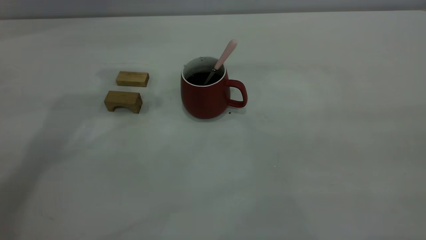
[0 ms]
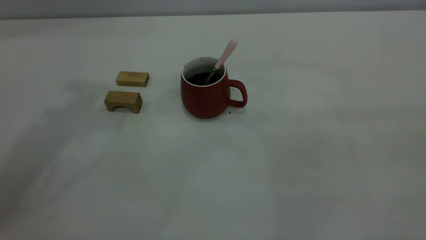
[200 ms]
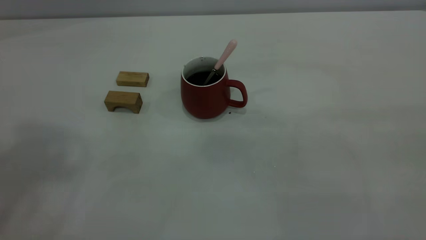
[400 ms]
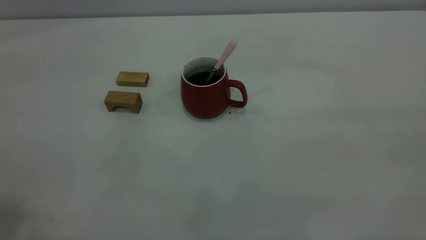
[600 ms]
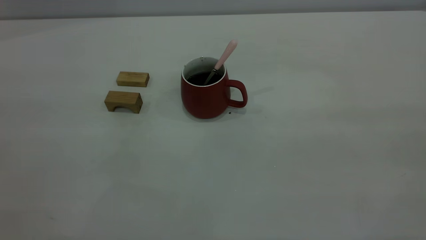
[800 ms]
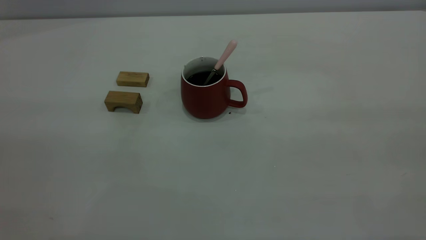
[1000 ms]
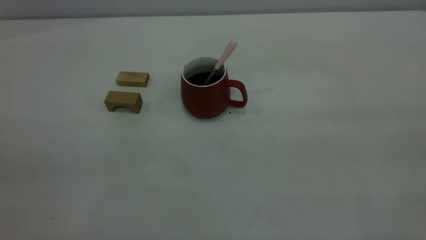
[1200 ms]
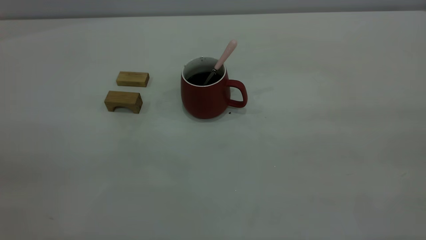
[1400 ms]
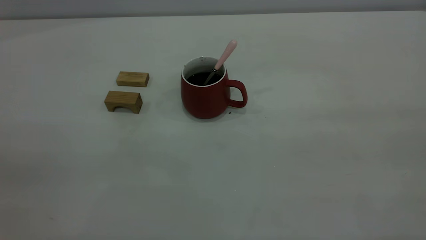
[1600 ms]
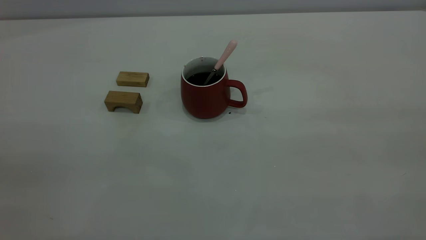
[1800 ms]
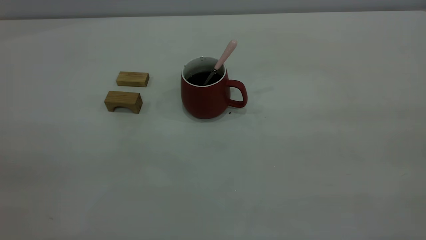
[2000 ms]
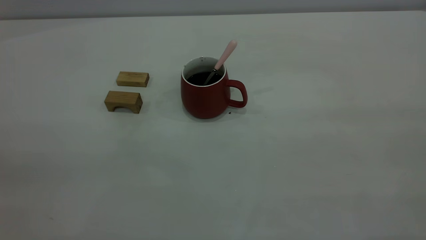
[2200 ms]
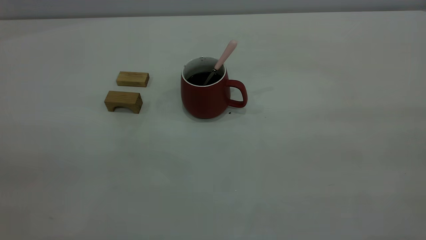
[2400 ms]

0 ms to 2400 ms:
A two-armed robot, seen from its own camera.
1200 ms to 2400 ms: Neither gripper changes place.

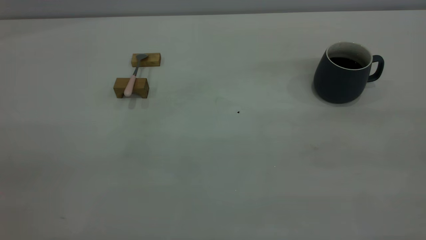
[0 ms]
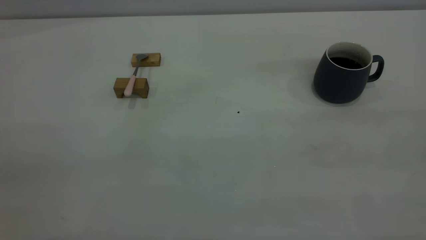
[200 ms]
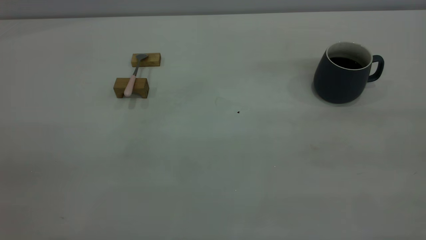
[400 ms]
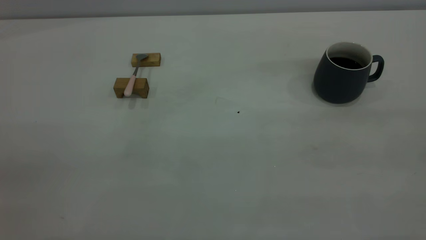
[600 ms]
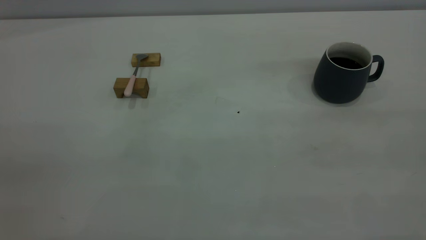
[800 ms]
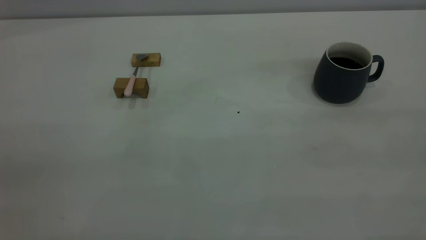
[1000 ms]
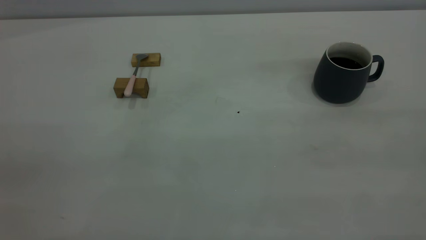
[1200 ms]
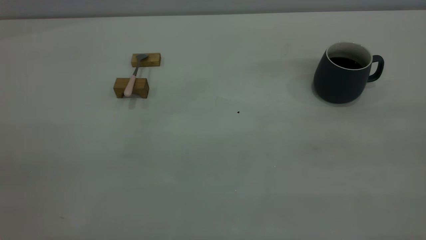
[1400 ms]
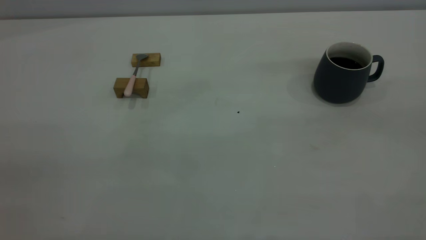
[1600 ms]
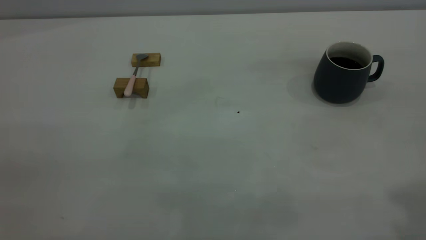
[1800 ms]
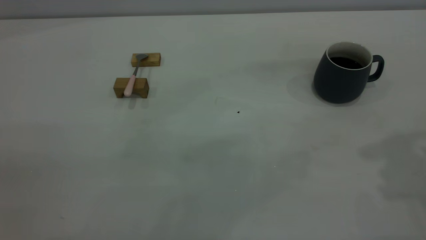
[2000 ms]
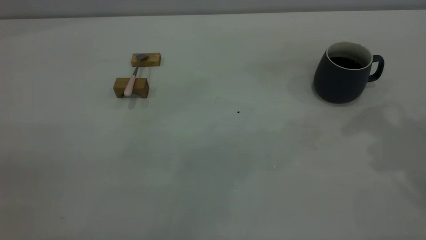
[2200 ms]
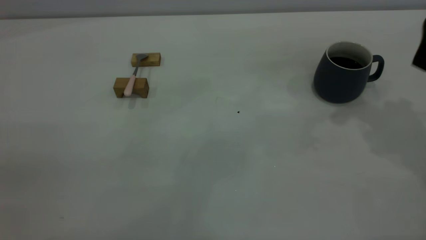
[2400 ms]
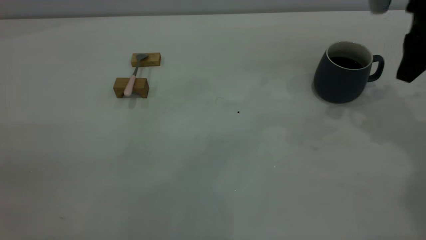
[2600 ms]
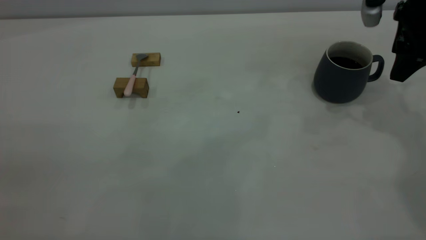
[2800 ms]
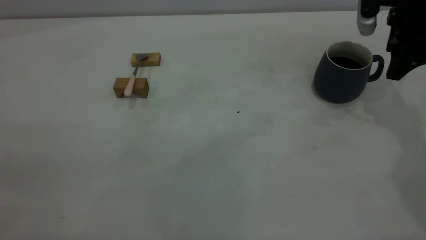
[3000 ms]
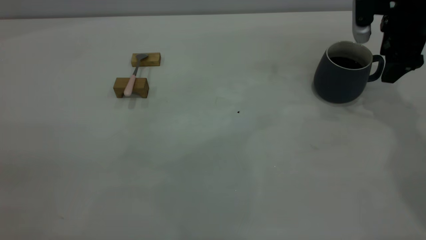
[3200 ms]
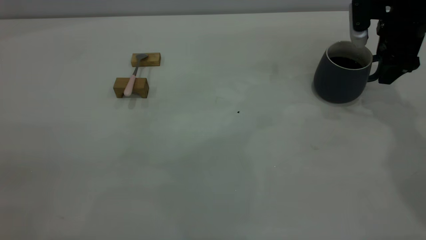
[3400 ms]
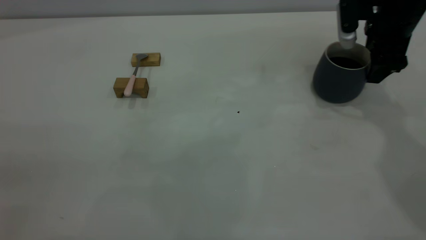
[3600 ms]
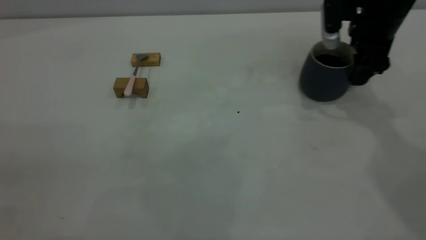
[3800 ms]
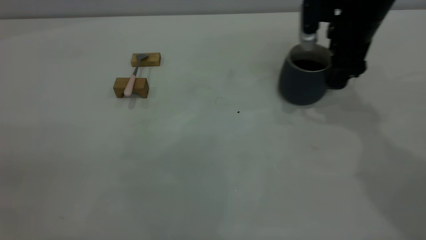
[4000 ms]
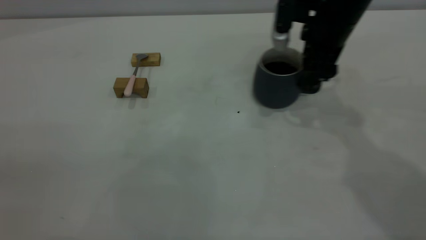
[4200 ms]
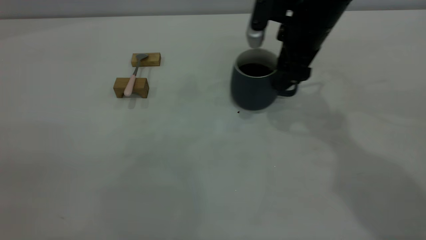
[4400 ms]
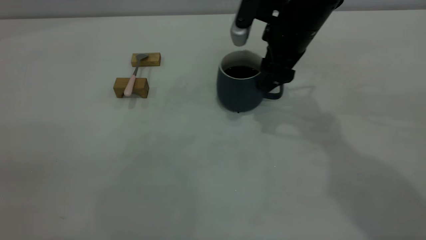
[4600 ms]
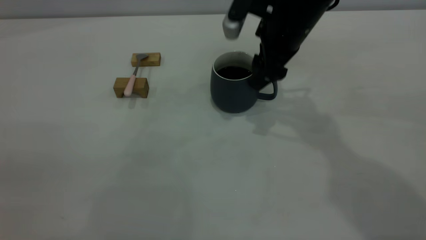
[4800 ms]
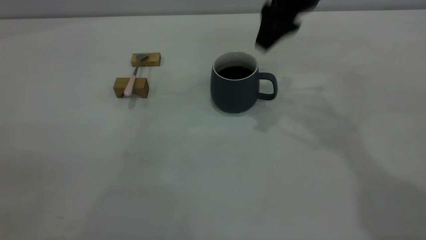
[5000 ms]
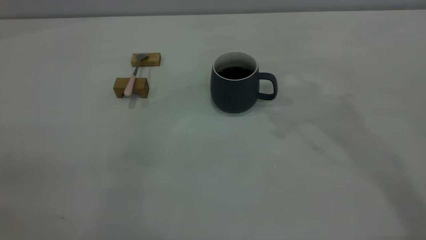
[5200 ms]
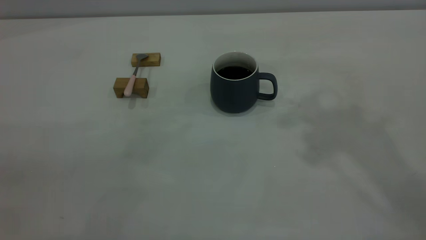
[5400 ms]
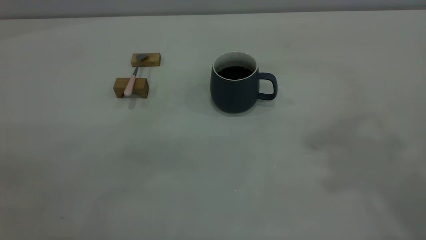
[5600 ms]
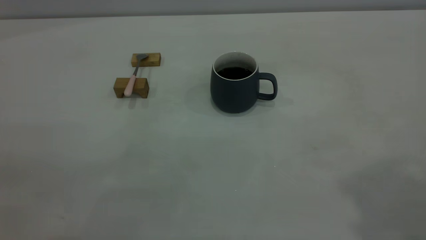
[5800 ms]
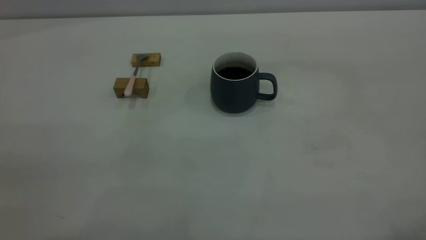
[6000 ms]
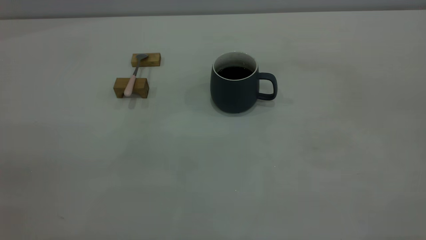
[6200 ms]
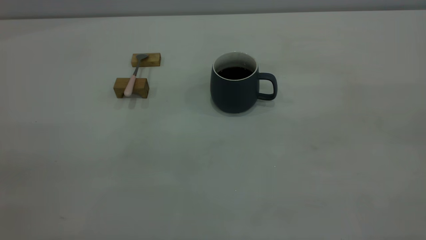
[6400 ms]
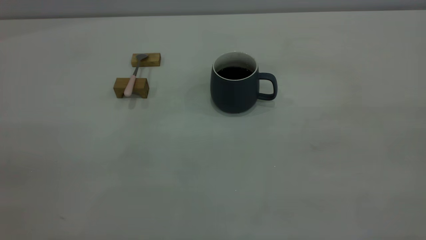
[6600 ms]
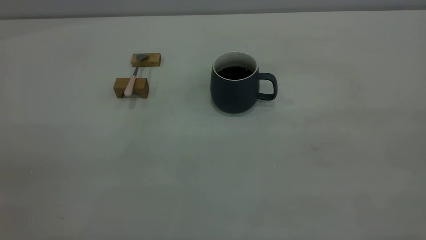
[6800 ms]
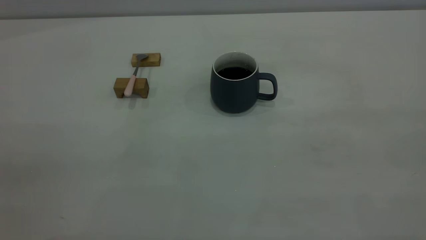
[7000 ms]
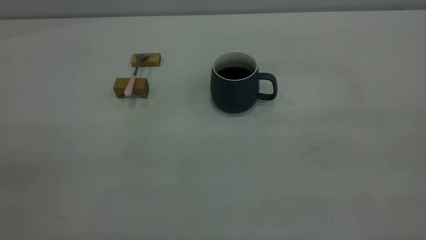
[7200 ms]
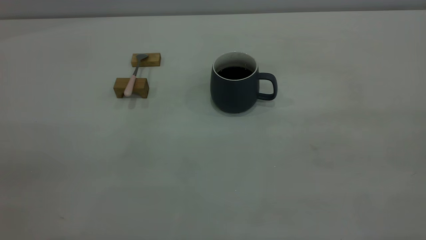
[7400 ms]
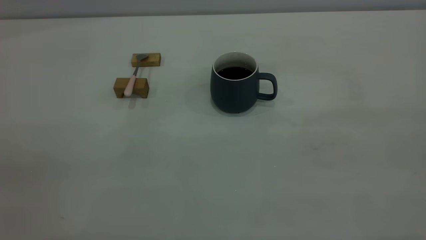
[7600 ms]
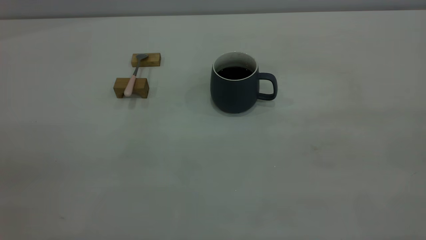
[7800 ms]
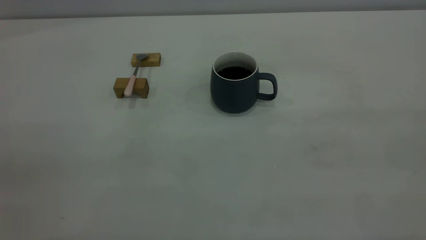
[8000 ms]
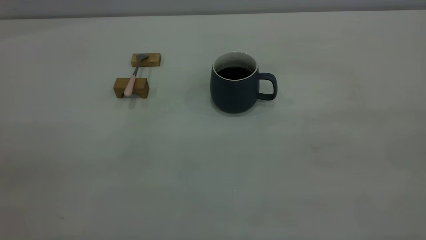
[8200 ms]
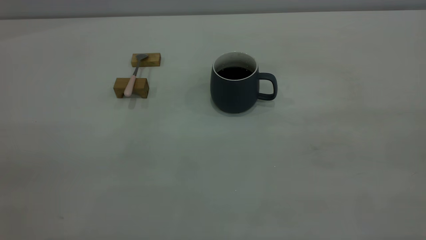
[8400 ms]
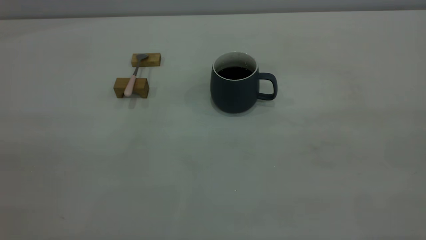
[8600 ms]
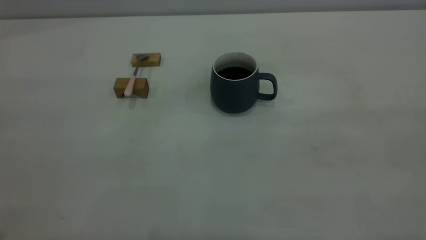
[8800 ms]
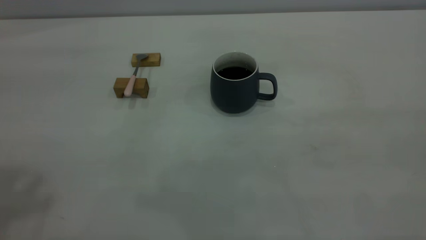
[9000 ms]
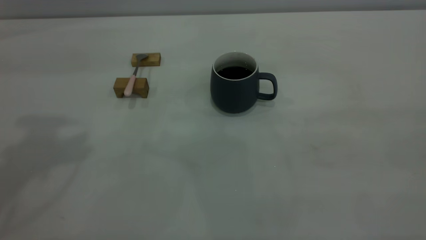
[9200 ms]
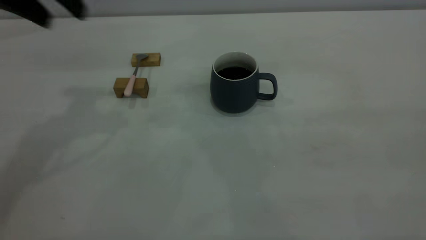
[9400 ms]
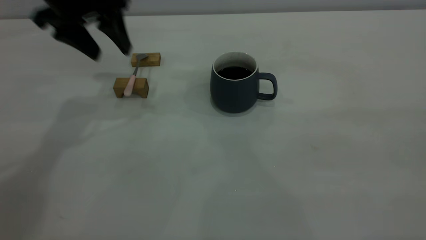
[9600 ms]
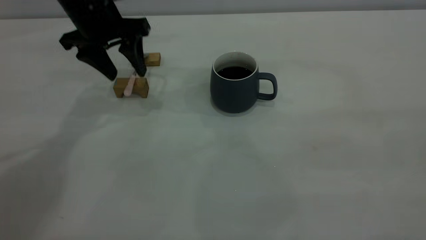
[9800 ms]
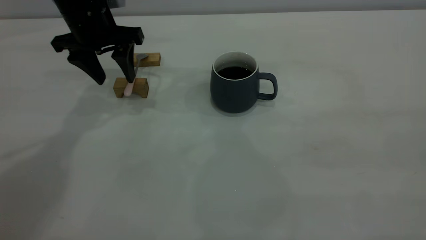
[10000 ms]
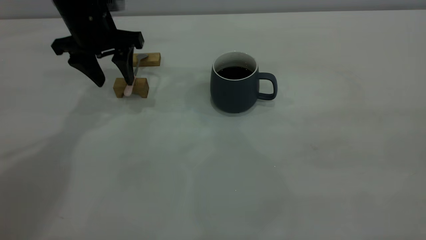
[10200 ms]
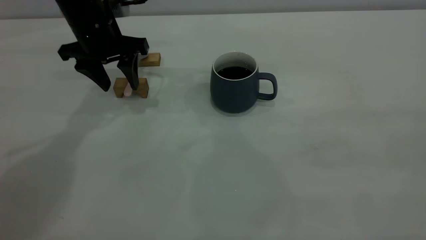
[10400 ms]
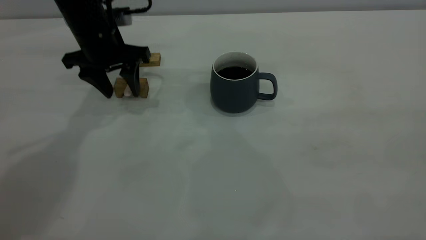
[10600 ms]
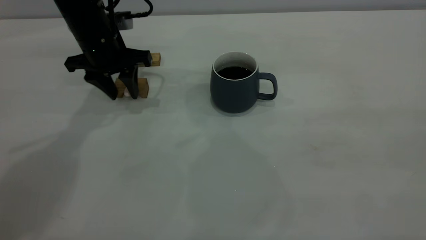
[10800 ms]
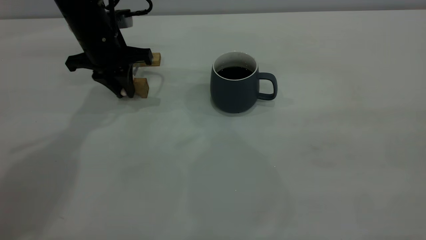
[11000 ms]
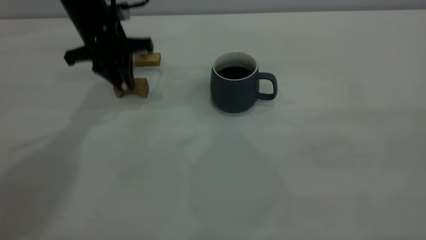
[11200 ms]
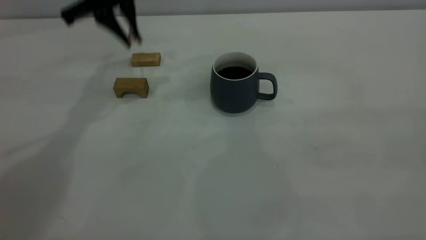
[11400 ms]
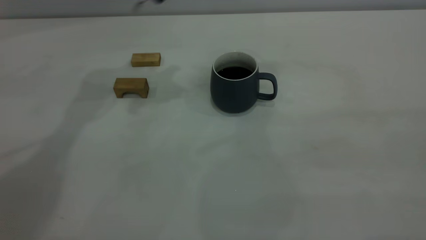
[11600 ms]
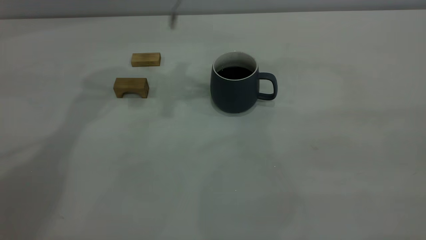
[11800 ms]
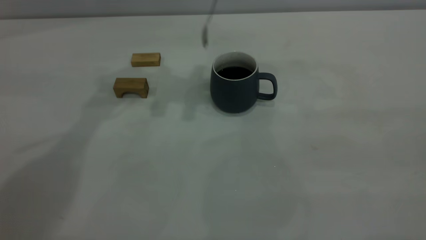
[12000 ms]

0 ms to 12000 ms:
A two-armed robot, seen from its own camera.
Step, 0 ms to 4800 ms: Move the cup with coffee to the center of view.
Step, 5000 ms to 11200 ms: Pick up the spoon.
1600 ms to 3000 ms: The right gripper goes some 40 cm forward and downward, and opens up.
3000 ms to 4400 ms: The right gripper shifts approximately 15 cm to the left.
4400 ms to 6000 ms: The right gripper heads upward and backward, covering about 50 cm.
9000 ms to 10400 ms: The left gripper moves downward and forward, about 35 cm.
10400 ms to 12000 ms: The left gripper shifts about 15 cm upward and to the right, and closes up.

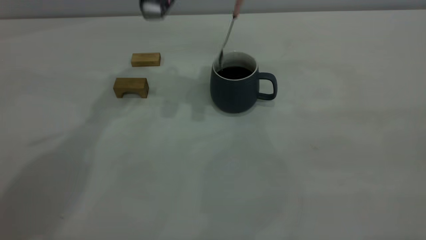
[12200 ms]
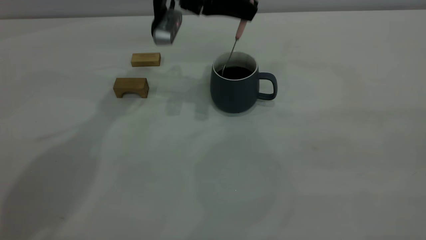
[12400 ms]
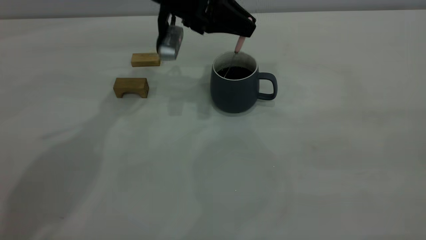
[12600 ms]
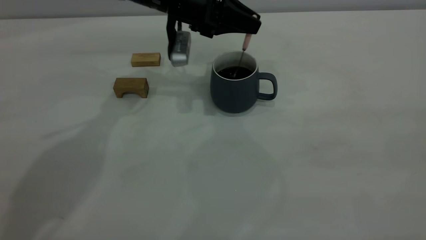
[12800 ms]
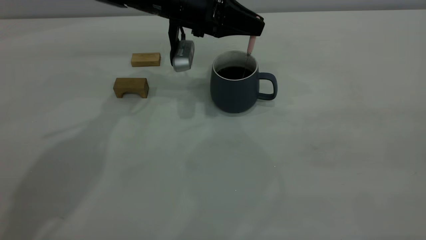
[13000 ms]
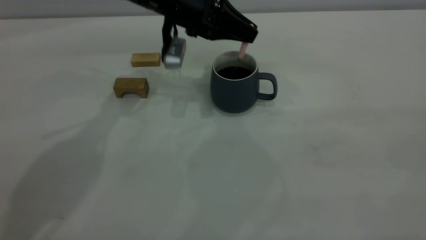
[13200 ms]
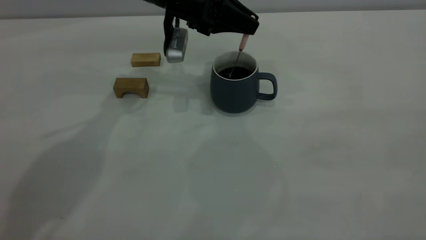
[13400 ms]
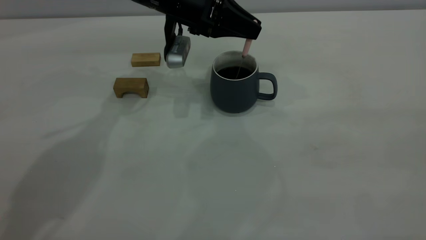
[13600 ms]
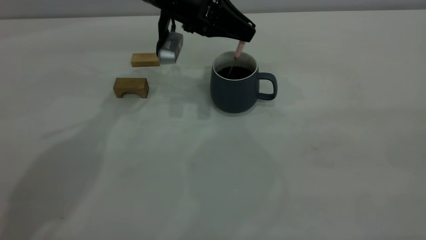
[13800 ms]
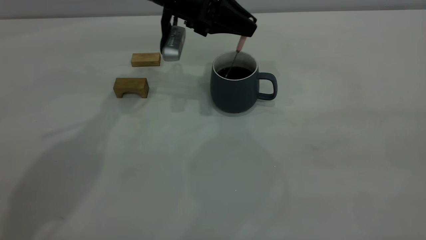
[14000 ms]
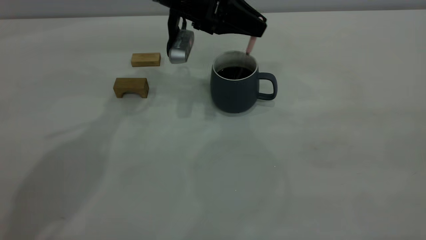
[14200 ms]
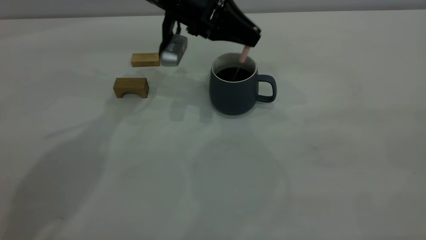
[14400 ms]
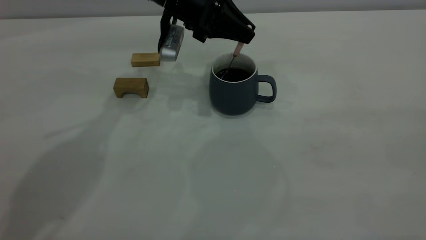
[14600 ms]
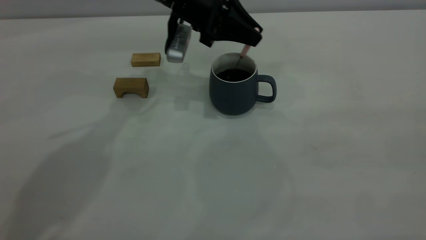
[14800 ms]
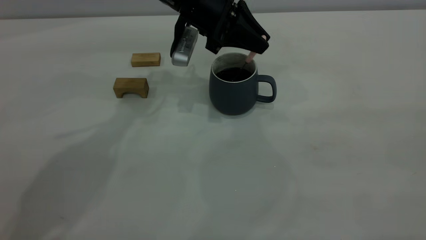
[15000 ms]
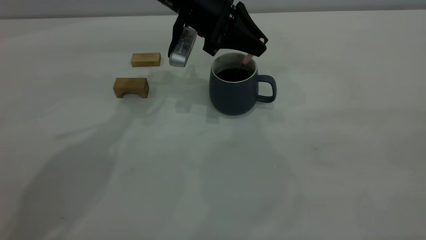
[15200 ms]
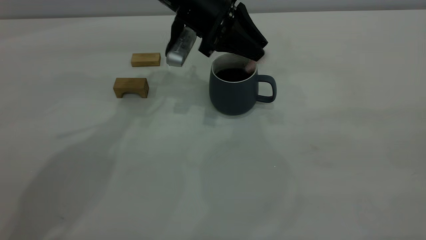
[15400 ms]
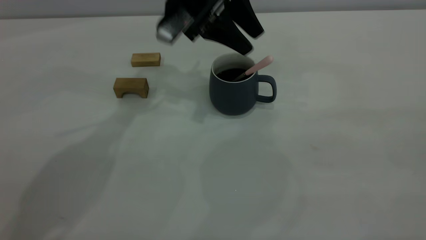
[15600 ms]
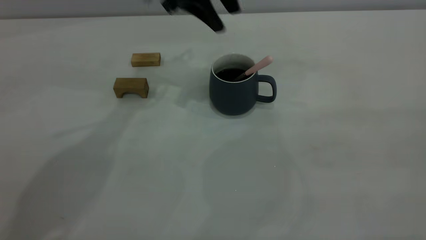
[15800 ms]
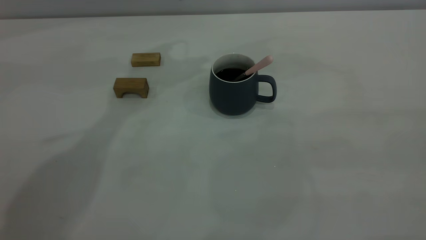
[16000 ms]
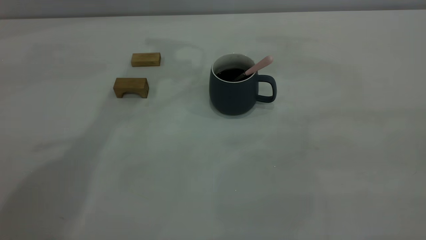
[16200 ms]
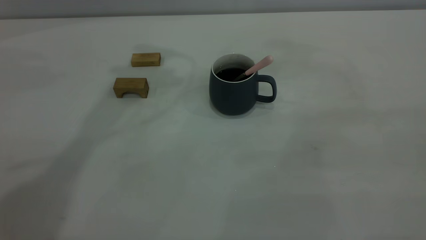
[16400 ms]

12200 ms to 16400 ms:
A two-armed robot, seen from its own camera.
Step, 12200 ms to 15600 ms: Stir the coffee in the cup.
12200 ms to 13600 ms: The left gripper heads downward, covering about 10 cm.
13600 ms to 15000 ms: The grippers move only a little.
15000 ms to 16400 ms: The left gripper heads upward, covering about 25 cm, and opens up.
